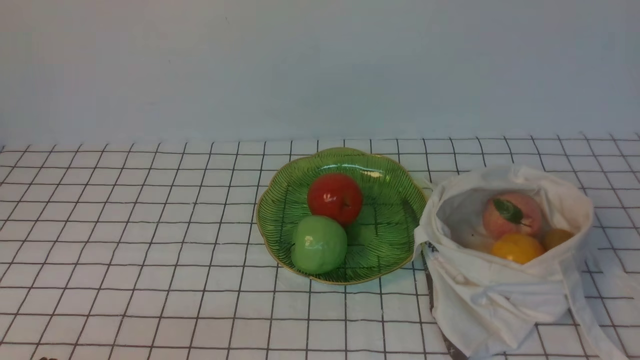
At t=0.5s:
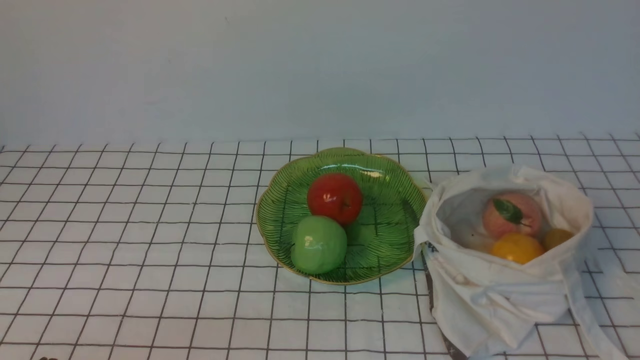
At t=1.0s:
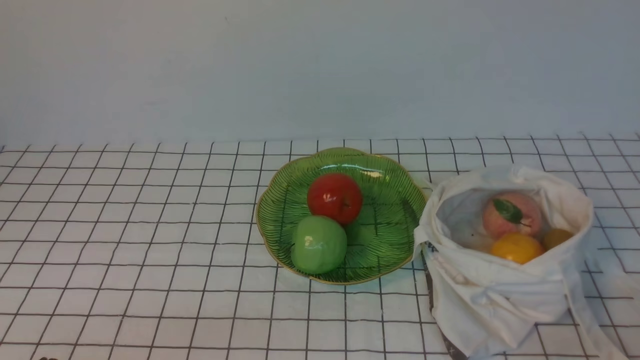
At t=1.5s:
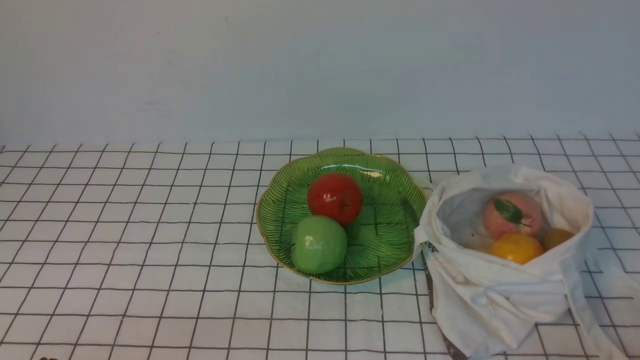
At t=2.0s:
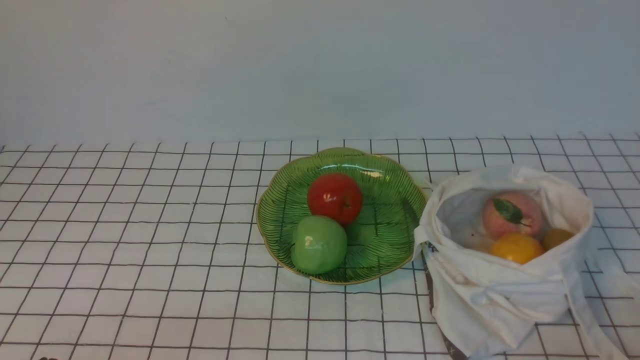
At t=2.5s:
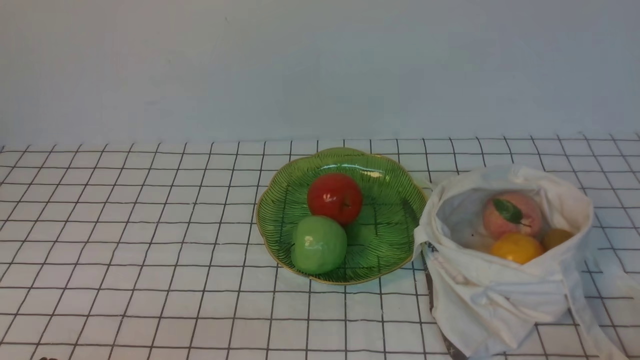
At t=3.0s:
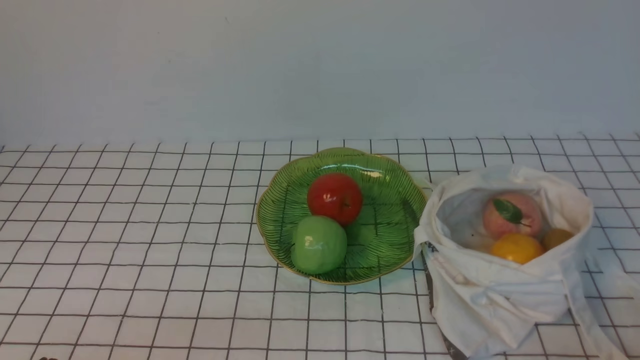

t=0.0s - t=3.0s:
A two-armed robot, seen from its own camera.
t=1.5s - t=3.0s: The two grippers keep their place.
